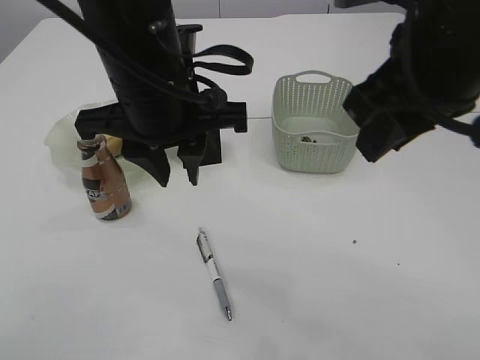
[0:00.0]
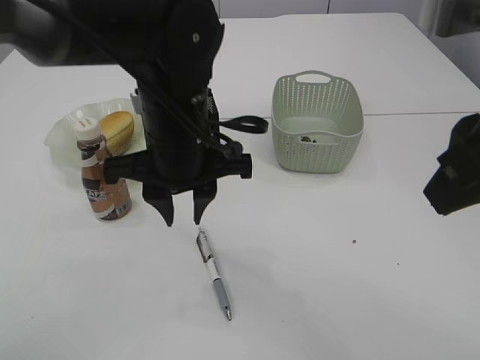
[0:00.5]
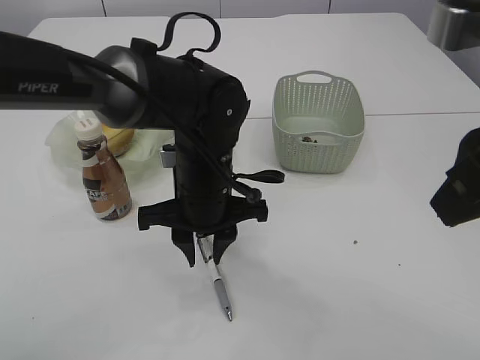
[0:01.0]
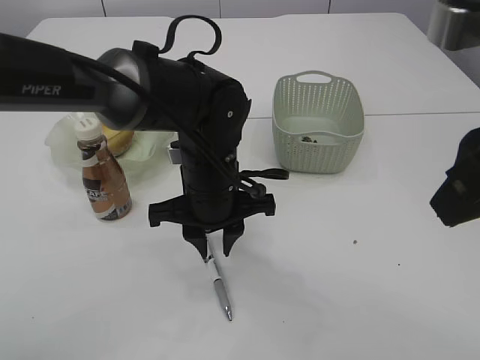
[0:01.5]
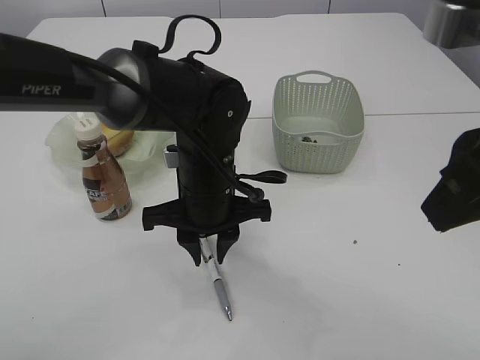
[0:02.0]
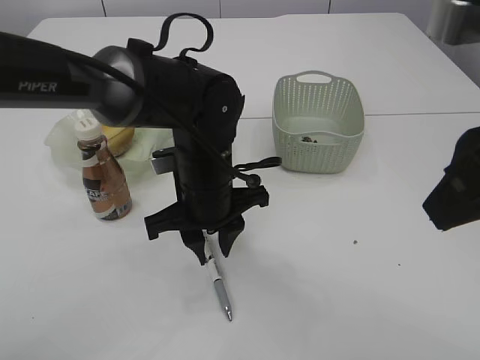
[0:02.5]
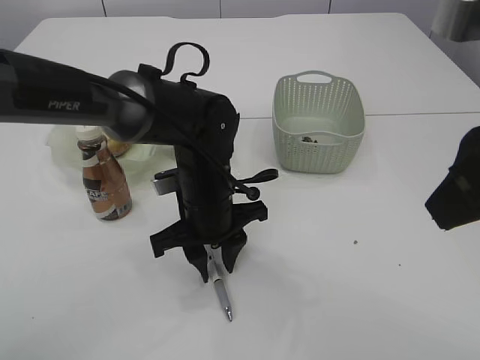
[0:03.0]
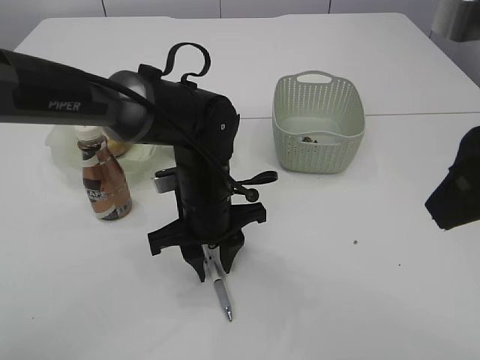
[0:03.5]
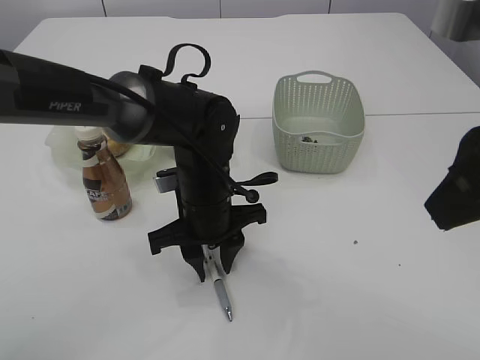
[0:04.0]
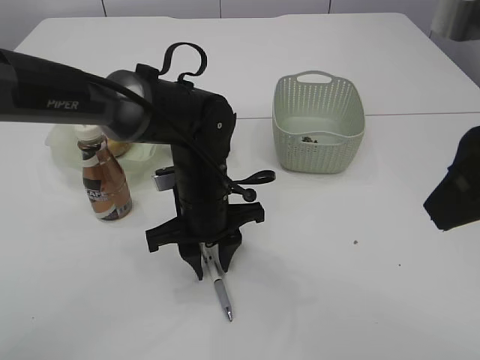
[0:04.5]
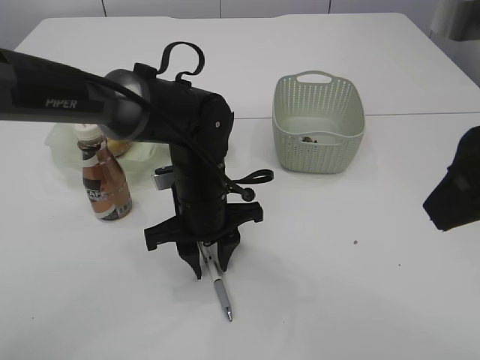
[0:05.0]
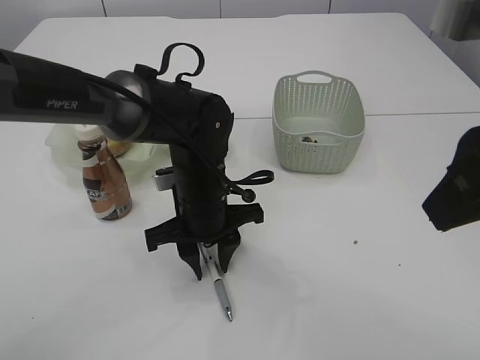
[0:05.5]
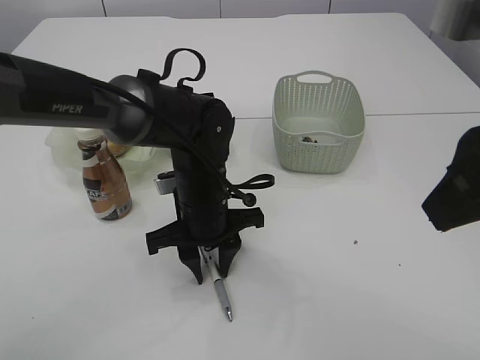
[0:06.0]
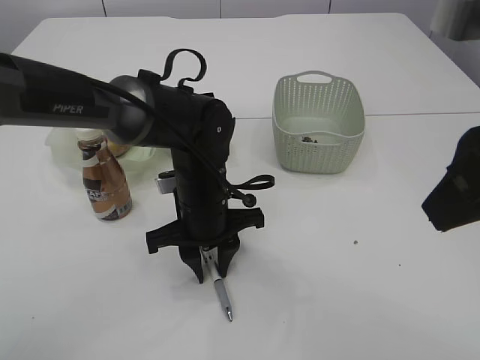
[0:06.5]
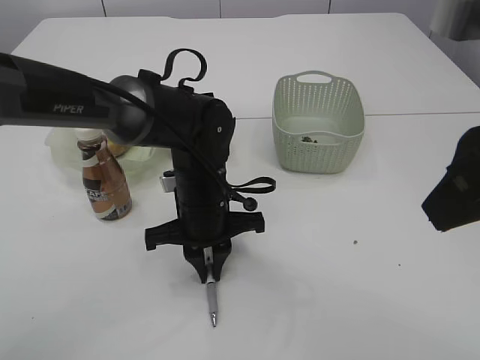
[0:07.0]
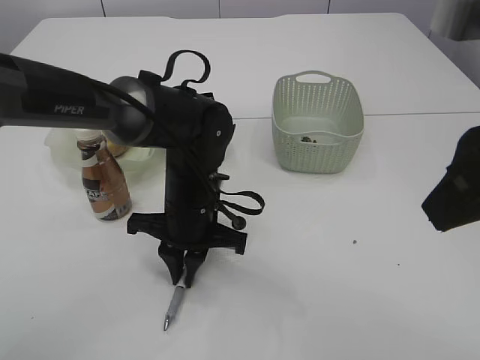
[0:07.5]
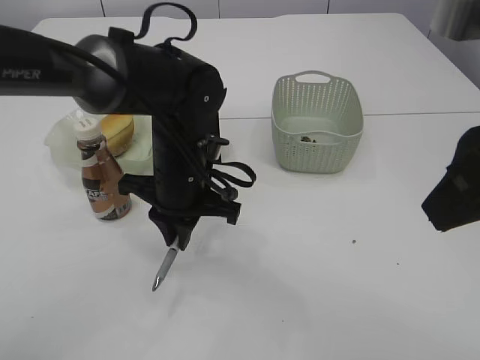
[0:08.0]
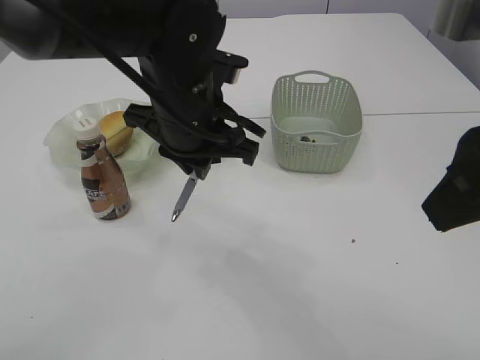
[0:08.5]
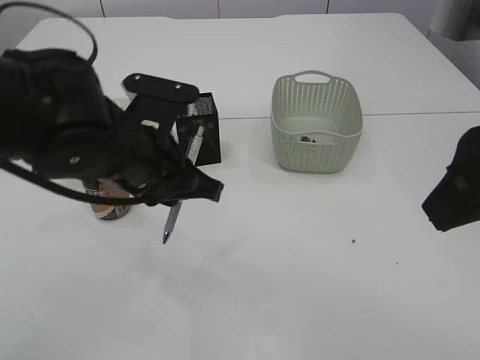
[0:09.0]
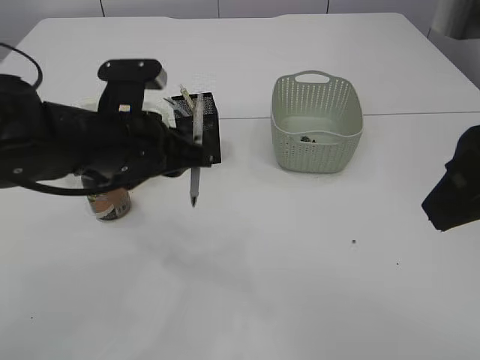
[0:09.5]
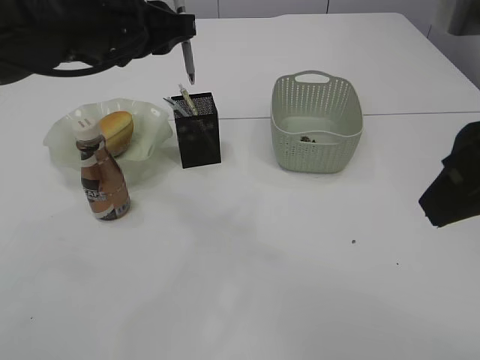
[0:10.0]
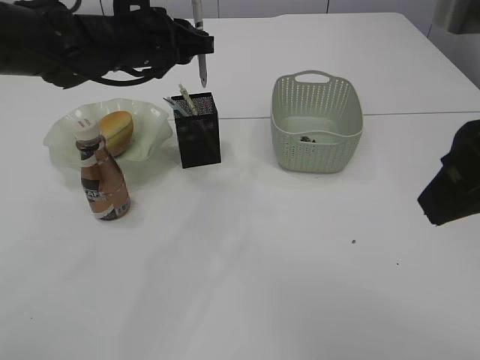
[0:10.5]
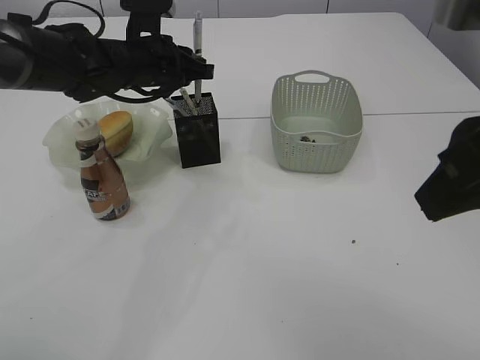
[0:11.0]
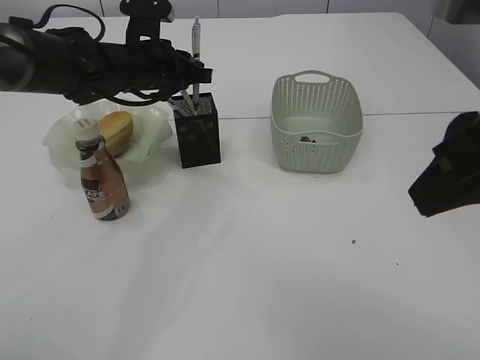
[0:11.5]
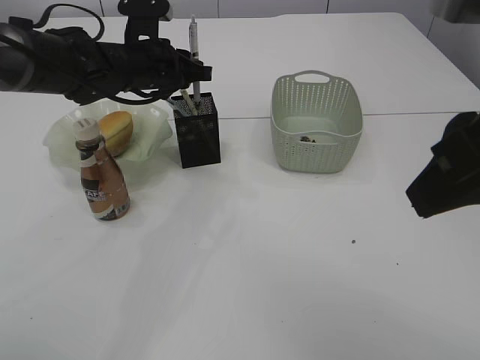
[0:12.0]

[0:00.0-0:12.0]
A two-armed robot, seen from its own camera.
Step, 0.0 to 8.0 s: Pick up the pen with left arm.
0.0 to 2.0 s: The left gripper travels downward by roughly 15 cm. The right gripper goes about 10 cm backward.
2.0 to 4.0 s: There are only small adjustments of the grippers.
4.0 to 6.0 s: Neither gripper changes place.
6.0 to 8.0 s: The left gripper closes its fingers.
8.0 to 10.0 s: The left gripper travels upward and to the left by roughly 15 cm.
10.0 to 12.0 s: The left gripper moves forward and downward, approximately 15 cm.

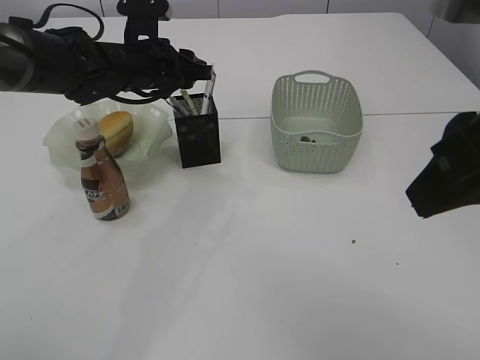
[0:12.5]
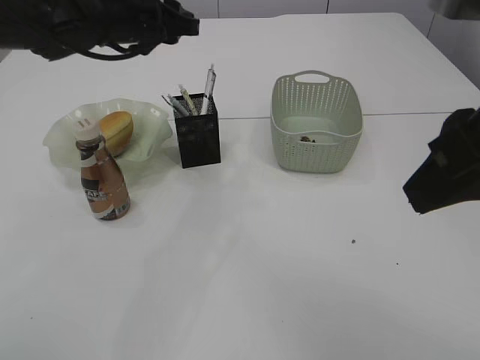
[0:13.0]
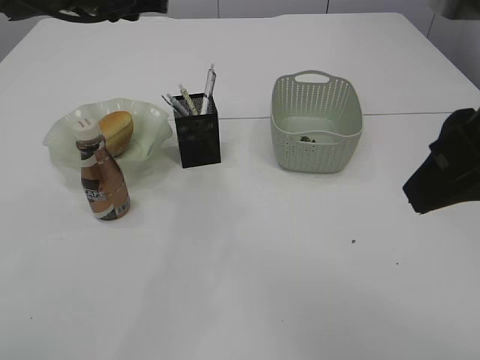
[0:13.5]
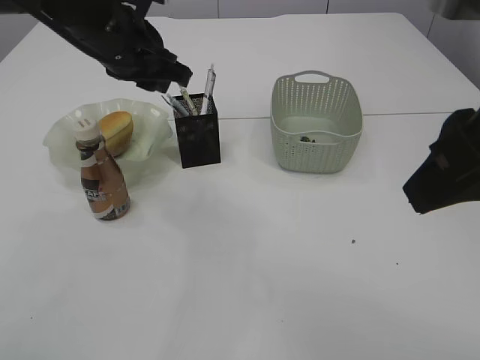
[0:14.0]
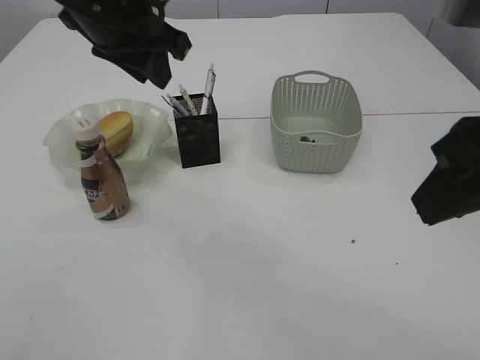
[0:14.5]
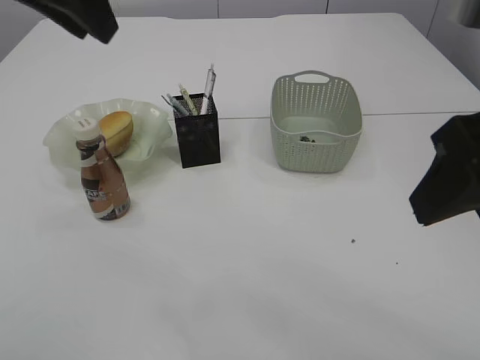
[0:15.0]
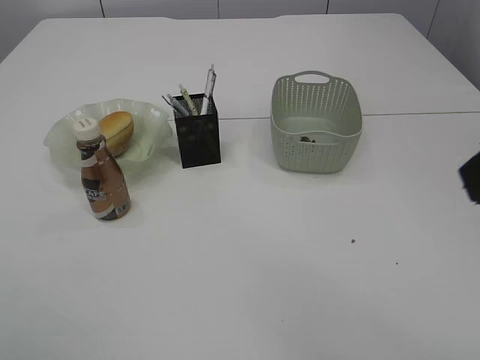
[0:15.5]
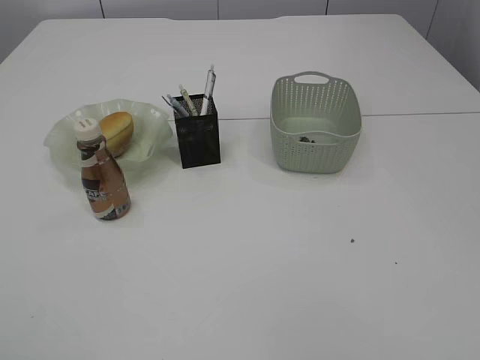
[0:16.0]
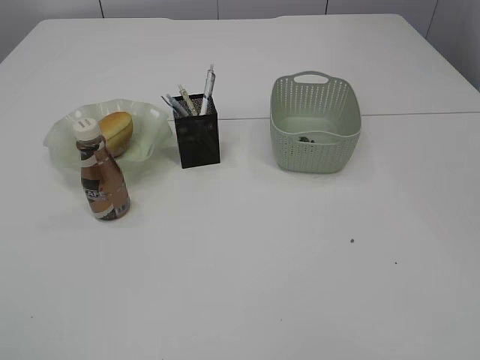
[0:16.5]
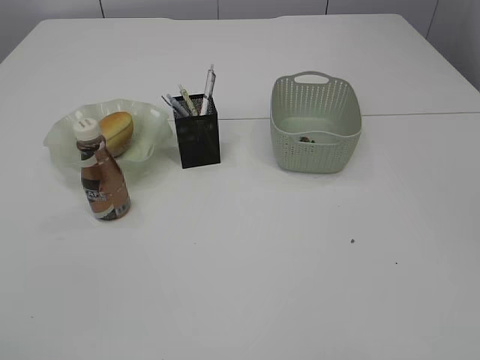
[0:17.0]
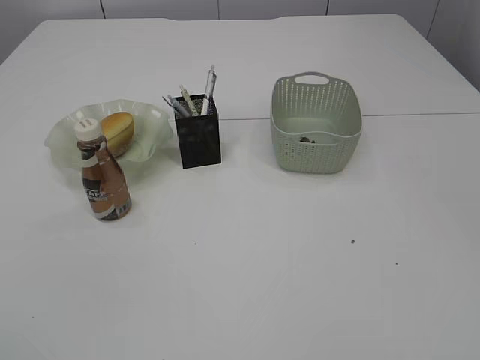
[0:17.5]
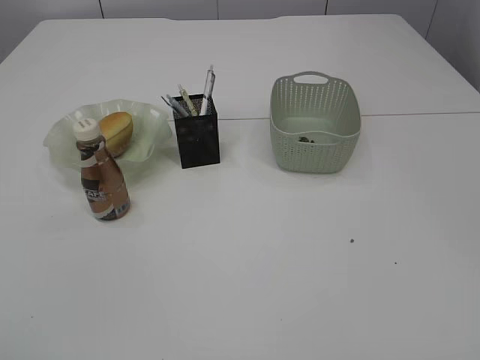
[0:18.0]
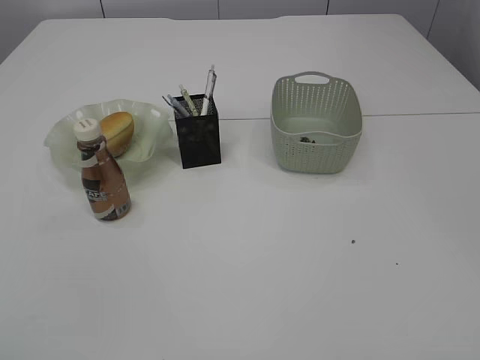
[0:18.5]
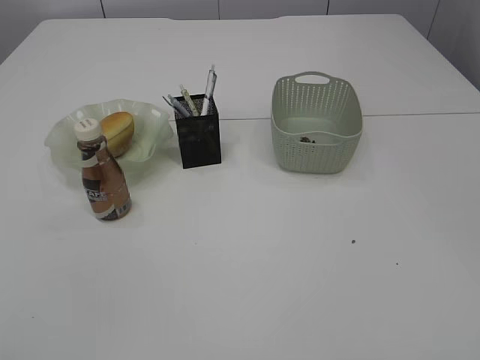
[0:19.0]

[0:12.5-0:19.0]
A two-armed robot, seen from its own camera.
12.5 to 14.5 s: The left gripper is displaced upward and backward by approximately 15 cm.
14.5 to 17.0 s: The left gripper travels backward and to the left by about 40 cm, and opens; the right gripper shifts roughly 25 cm backward and to the right.

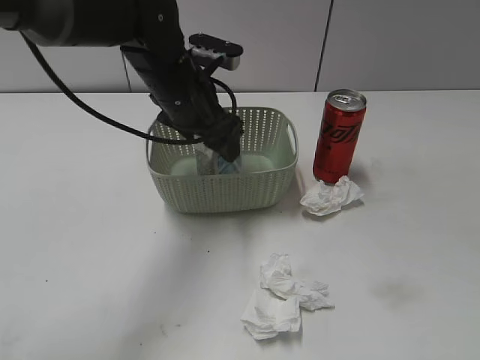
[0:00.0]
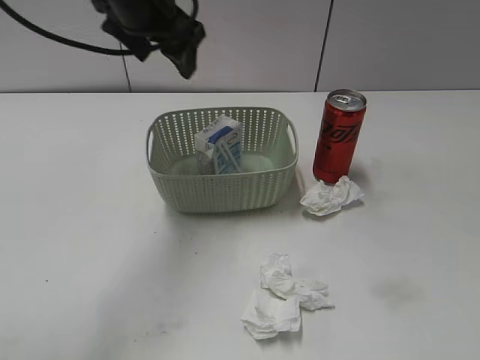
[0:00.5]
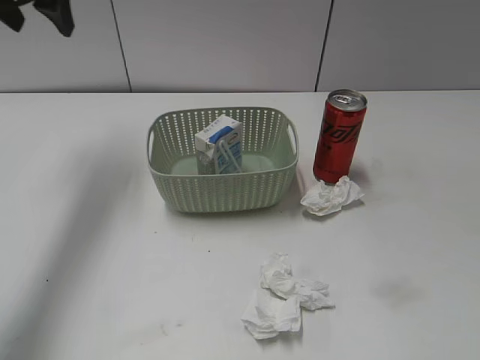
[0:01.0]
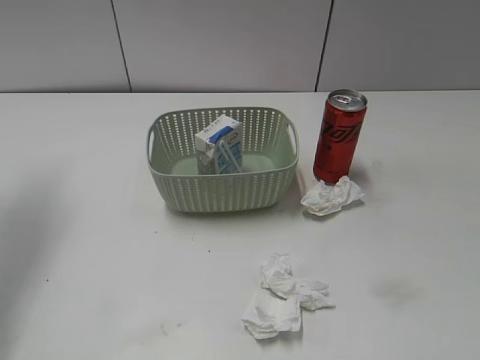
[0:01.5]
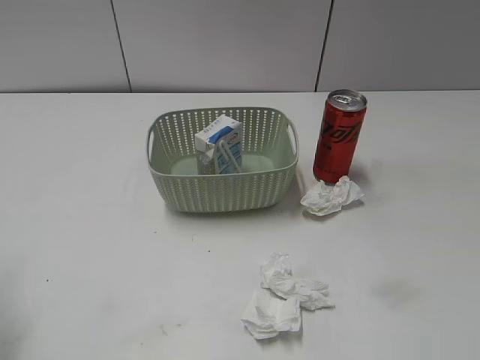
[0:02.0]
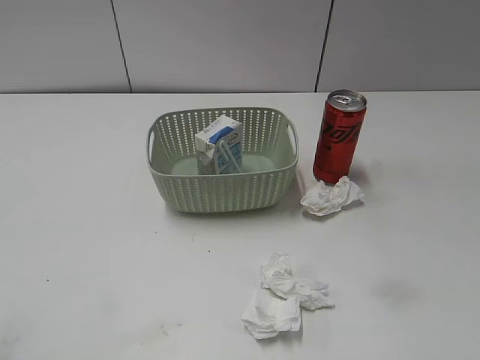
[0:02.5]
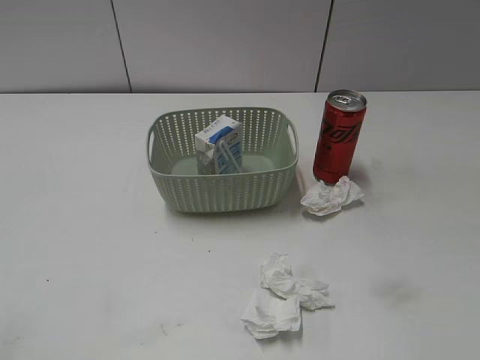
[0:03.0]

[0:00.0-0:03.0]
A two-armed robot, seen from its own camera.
0.0 to 1.5 s: The left gripper is displaced to the left and upward by some 30 cm.
1.5 to 3.0 s: The left gripper heads backward, covering approximately 30 cm.

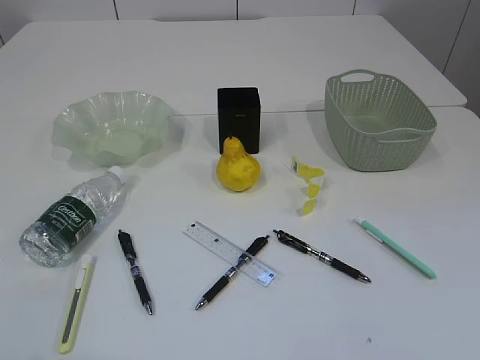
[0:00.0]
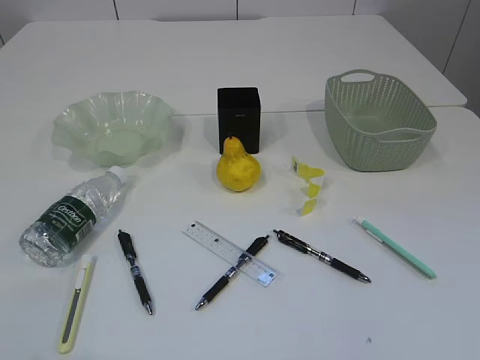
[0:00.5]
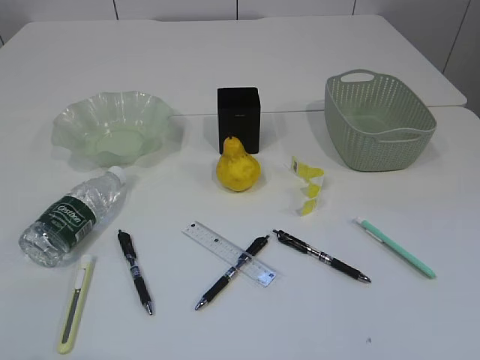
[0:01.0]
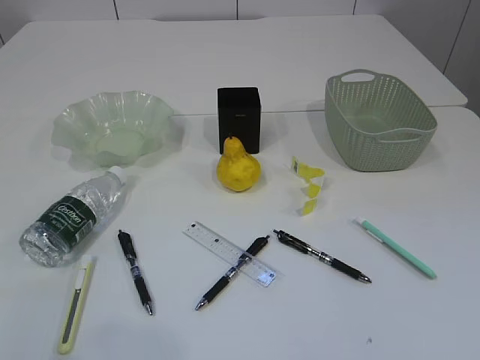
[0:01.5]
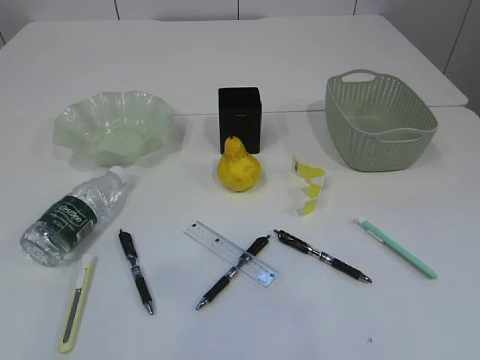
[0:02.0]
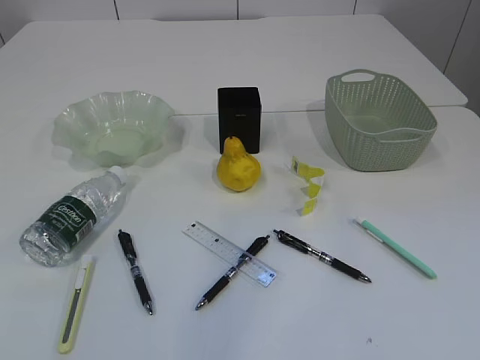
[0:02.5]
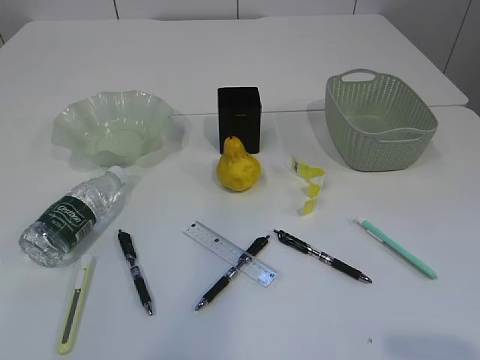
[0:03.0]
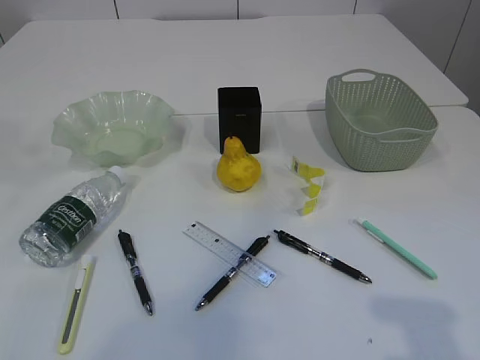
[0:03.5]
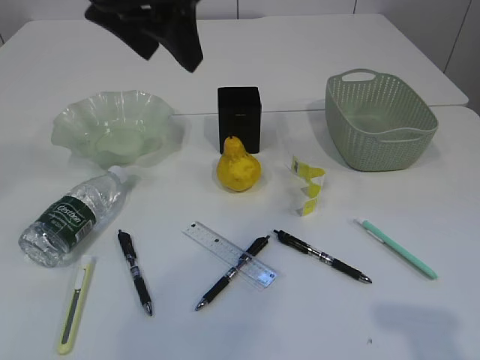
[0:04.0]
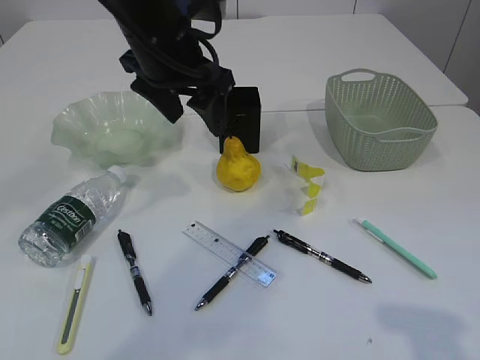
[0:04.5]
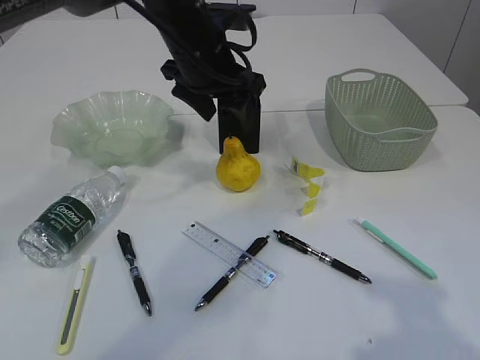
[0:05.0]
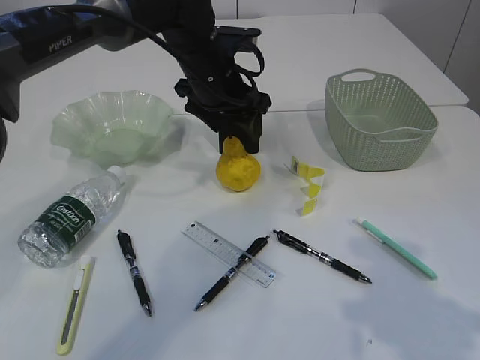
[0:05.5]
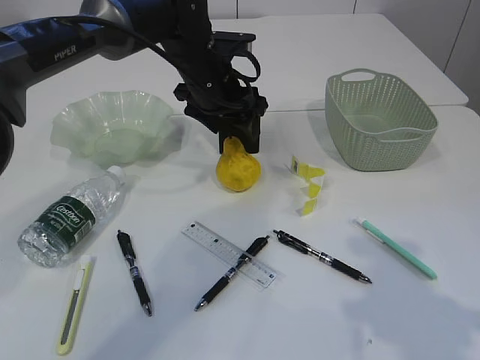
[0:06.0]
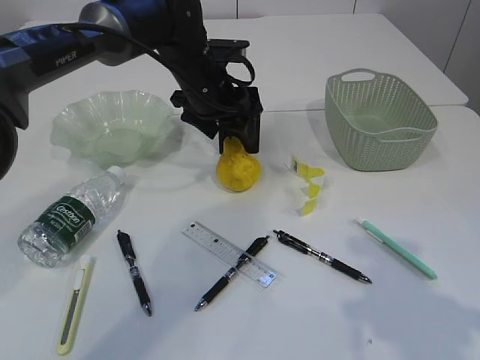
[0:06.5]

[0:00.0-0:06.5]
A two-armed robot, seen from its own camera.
2.0 to 4.5 s: The right gripper heads forward, covering approximately 10 cm. Meanwhile the left gripper is displaced forward, to the right and downward by some 40 cm, and opens its fingers.
4.5 to 6.5 s: The left gripper goes approximately 15 cm downward and forward, while the right gripper travels forward by some 10 cm.
